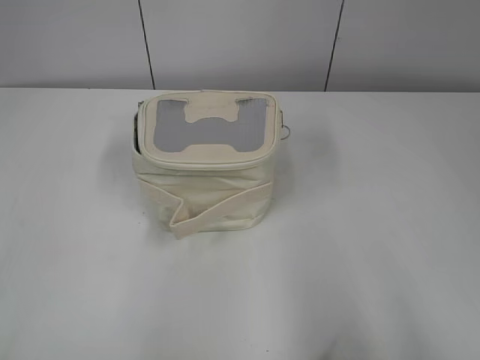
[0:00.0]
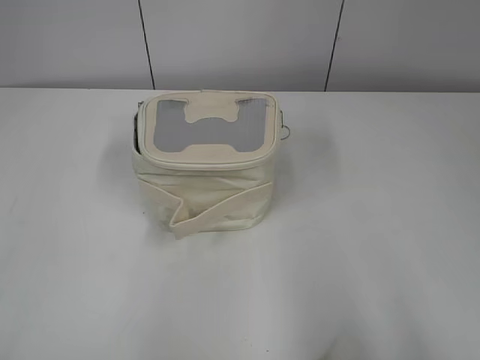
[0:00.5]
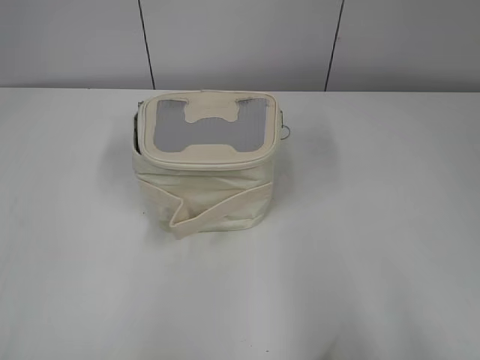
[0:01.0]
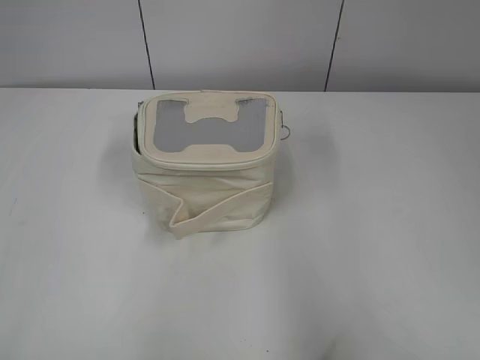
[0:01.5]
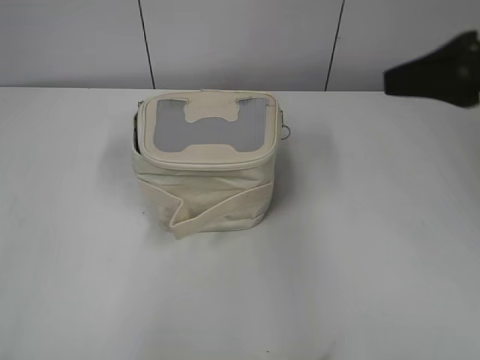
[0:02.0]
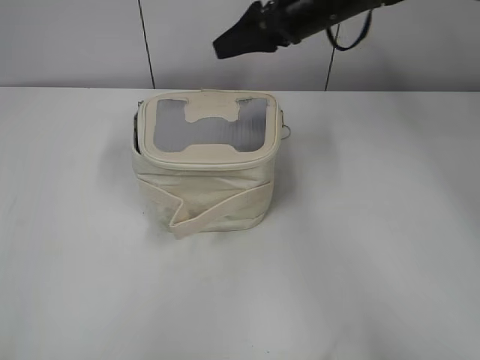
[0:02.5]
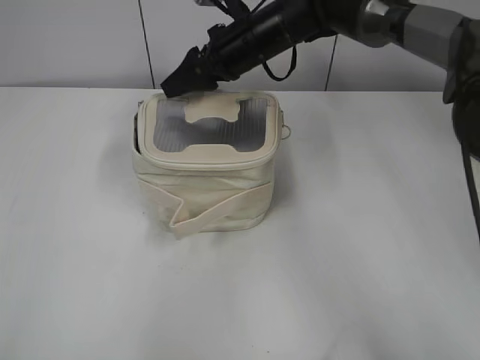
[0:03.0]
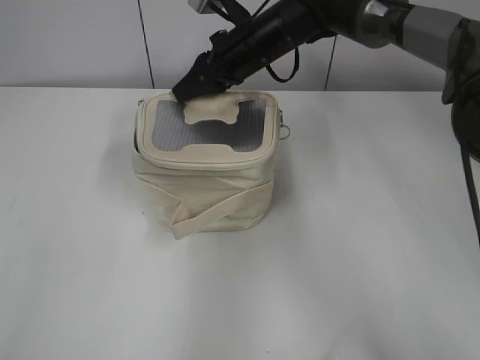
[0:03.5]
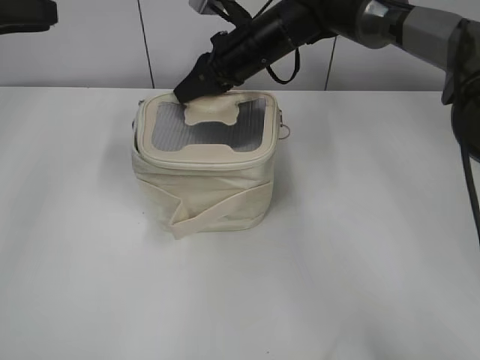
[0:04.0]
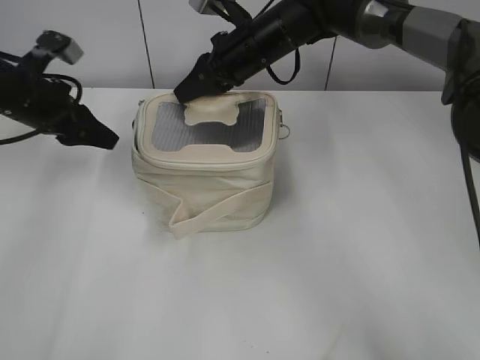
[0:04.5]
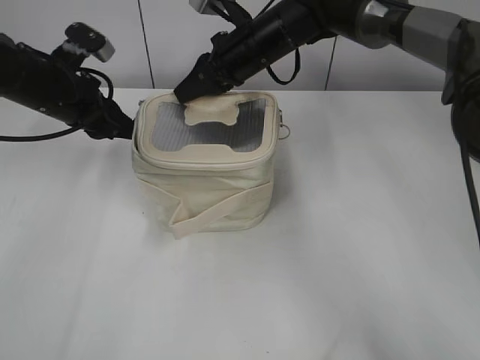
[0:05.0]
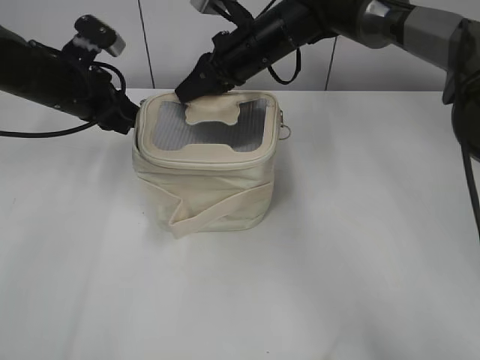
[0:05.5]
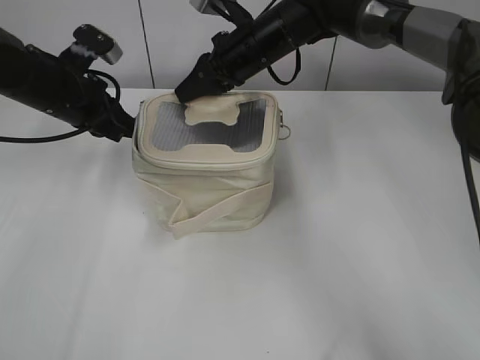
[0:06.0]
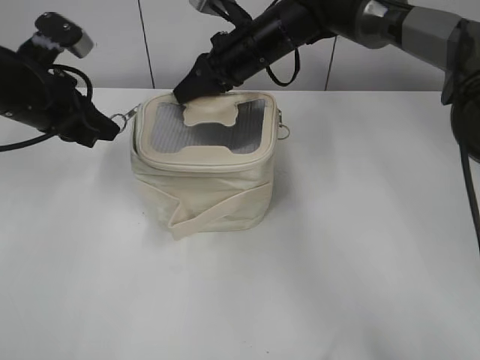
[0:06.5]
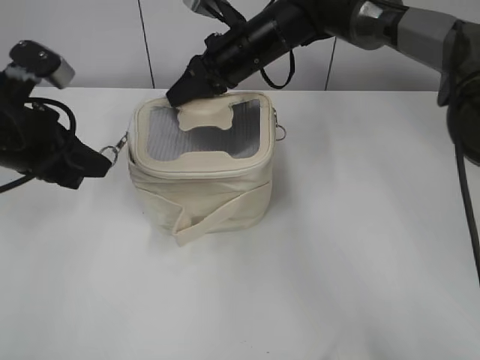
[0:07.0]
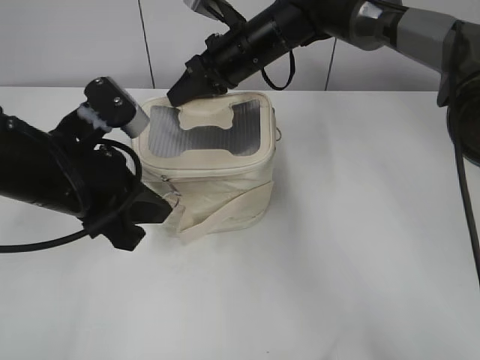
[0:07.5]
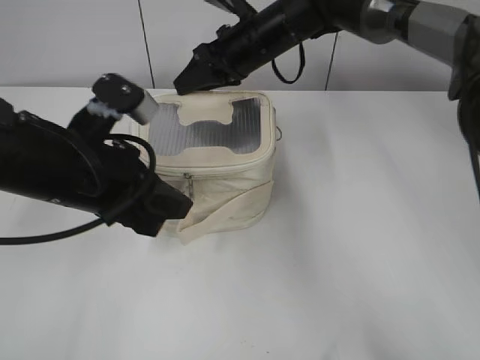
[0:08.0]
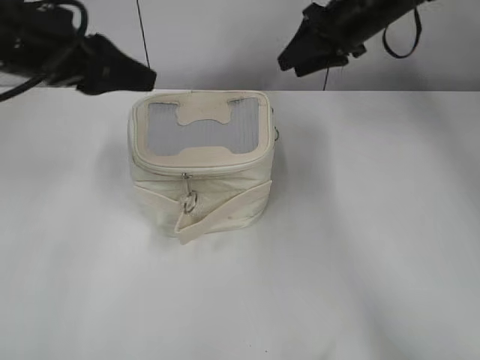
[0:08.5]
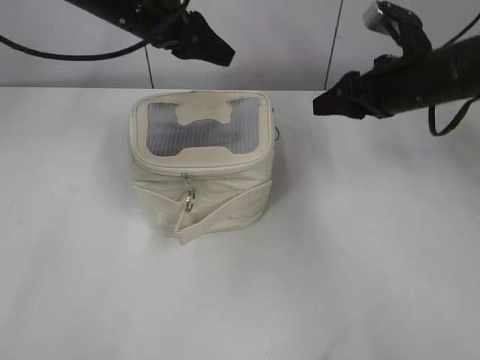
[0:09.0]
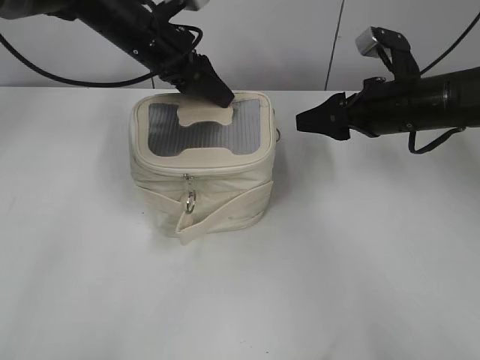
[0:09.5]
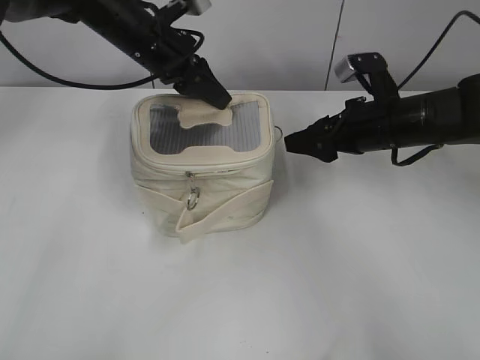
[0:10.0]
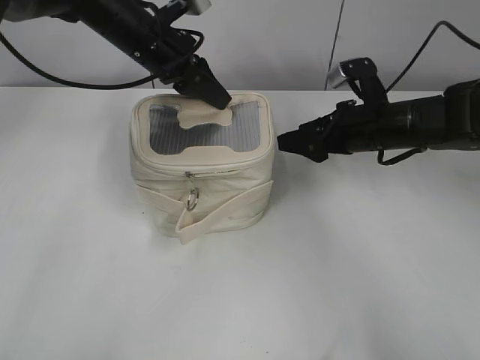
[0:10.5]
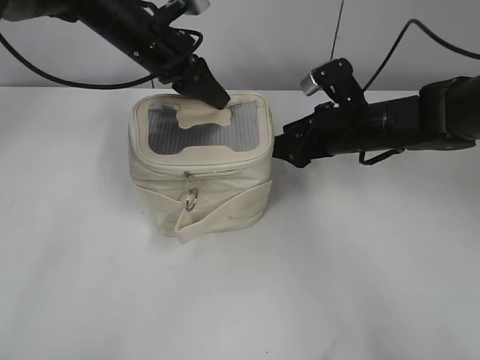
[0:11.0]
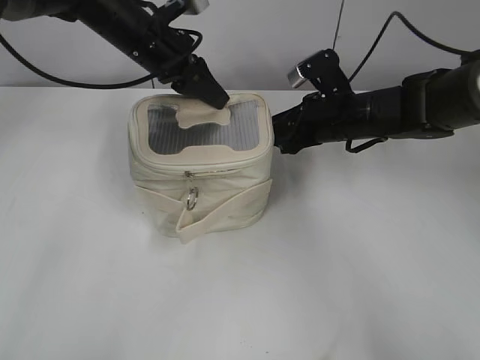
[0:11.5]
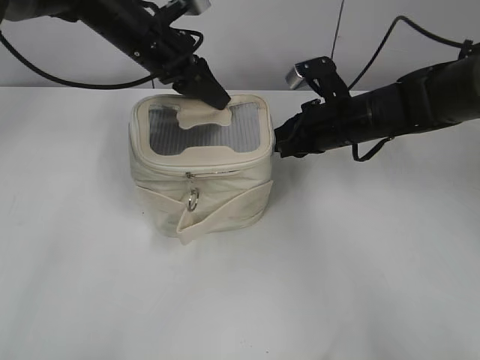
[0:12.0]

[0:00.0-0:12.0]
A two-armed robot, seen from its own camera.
Step, 0:00.0 to 0:08.0: Hold the bag with your right hand.
0:02.0 to 0:04.0: The right gripper travels forward, to the left and downward by about 35 cm, and closes; the left gripper moves forward, approximately 30 cm.
0:04.0 to 0:06.0: The left gripper shifts about 20 cm downward, forward and to the right, and closes its fingers.
0:06.0 to 0:08.0: The left gripper heads backward and to the right, covering about 20 cm.
0:08.0 to 0:10.0: The right gripper is displaced to the right and backward by about 20 cm, and opens its fingers, while the left gripper heads forward, covering about 20 cm, and opens and closes again.
0:10.0 to 0:12.0: The right gripper travels to the left by roughly 5 cm, and closes.

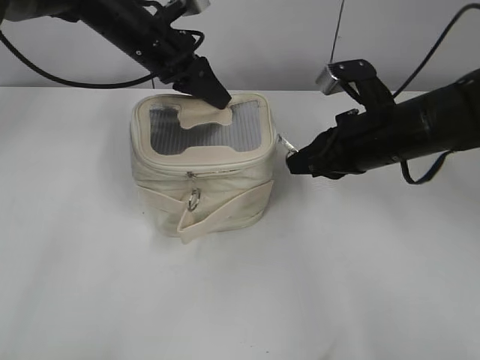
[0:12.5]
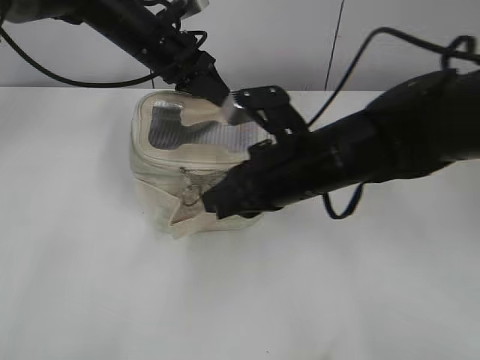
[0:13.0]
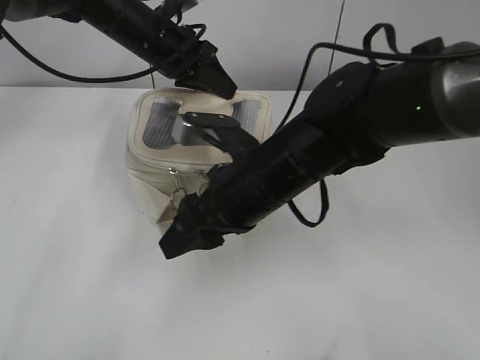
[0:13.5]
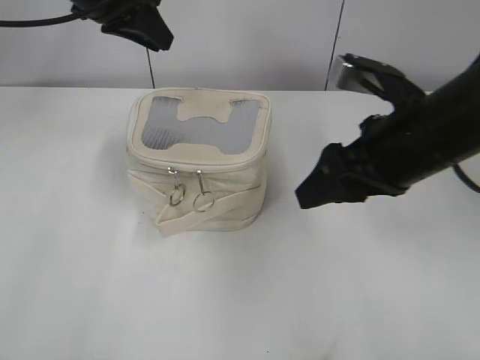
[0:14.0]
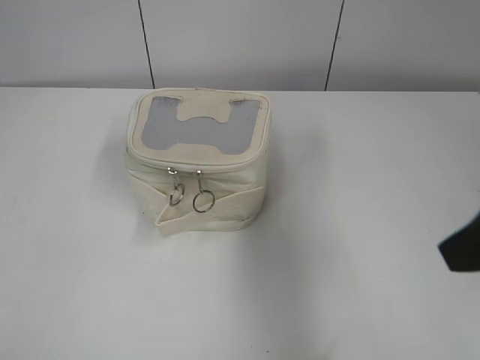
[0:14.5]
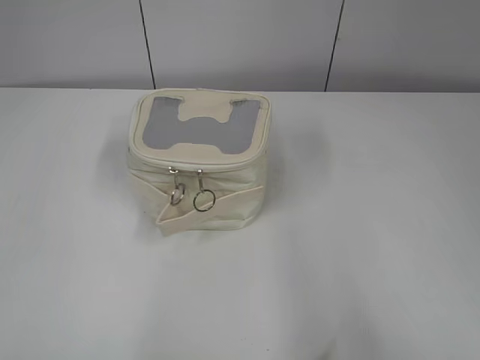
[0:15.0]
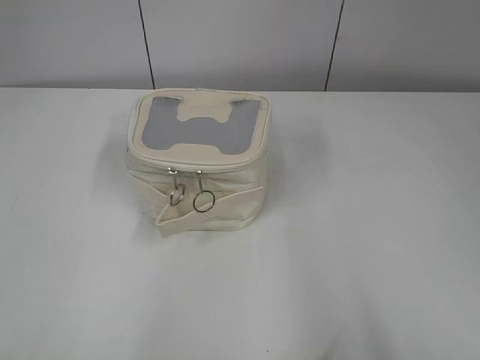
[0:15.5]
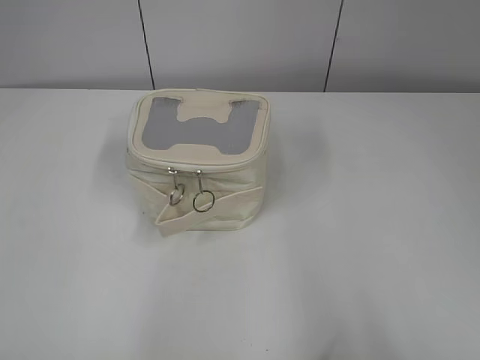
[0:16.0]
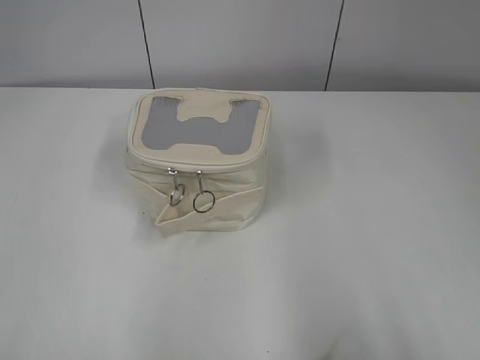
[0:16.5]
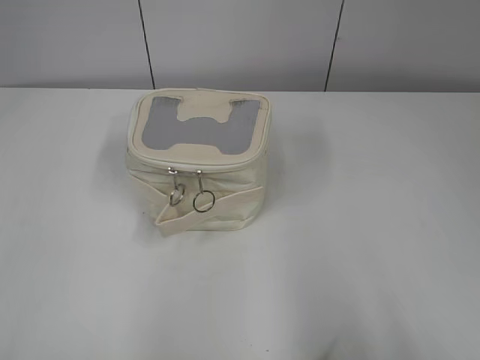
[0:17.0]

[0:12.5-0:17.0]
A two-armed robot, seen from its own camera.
0:12.5 to 0:14.5: The left gripper shifts about 30 cm backward, to the left and upward. The right gripper travels backward and upward by about 20 cm, reaches some 15 cm to the left, then returns, and opens.
0:14.5 to 0:17.0: The right gripper goes roughly 20 cm backward and to the right; the left gripper shifts roughly 20 cm backward.

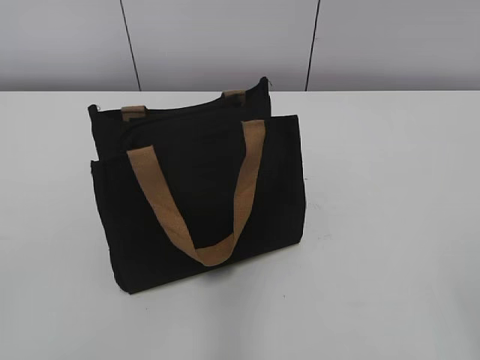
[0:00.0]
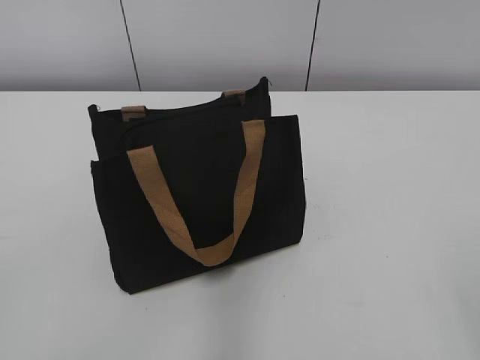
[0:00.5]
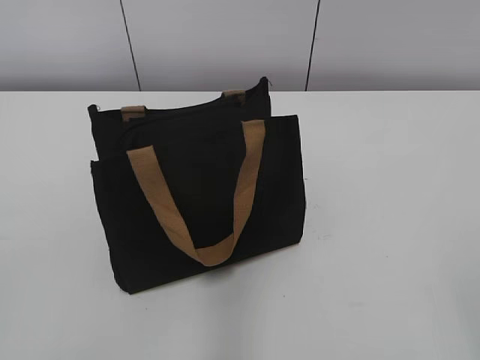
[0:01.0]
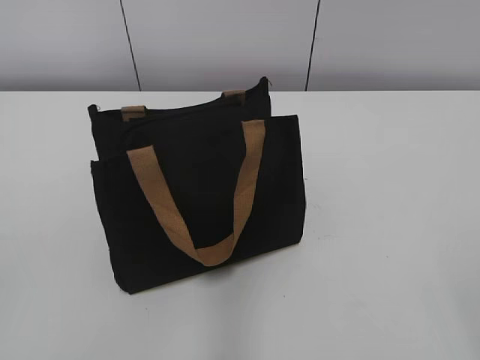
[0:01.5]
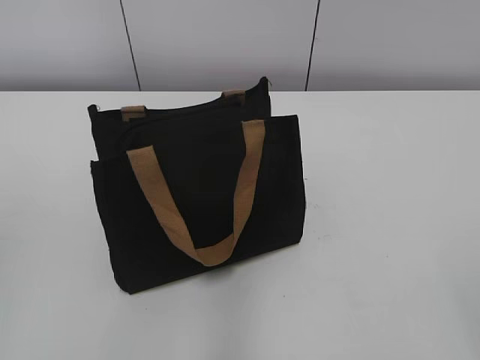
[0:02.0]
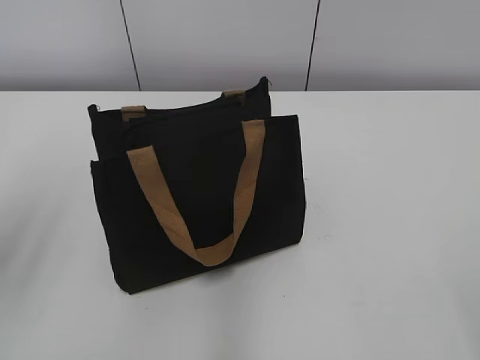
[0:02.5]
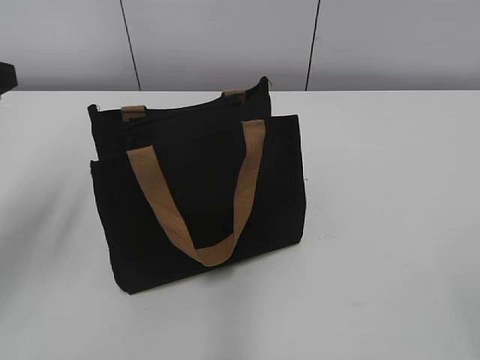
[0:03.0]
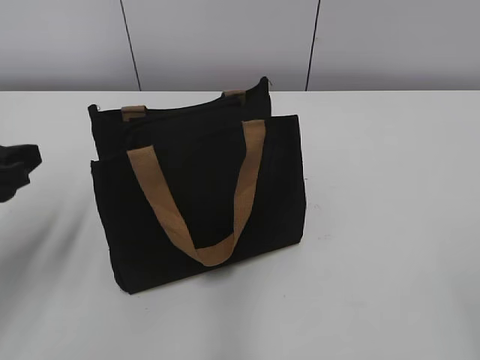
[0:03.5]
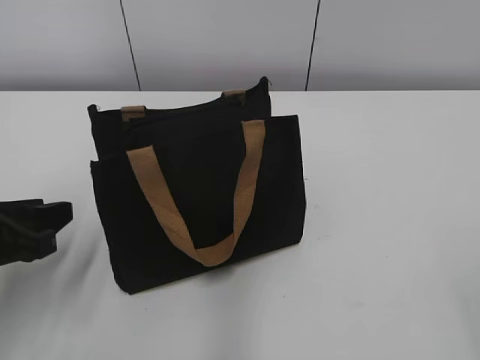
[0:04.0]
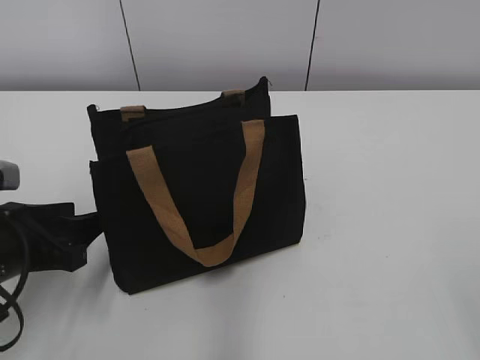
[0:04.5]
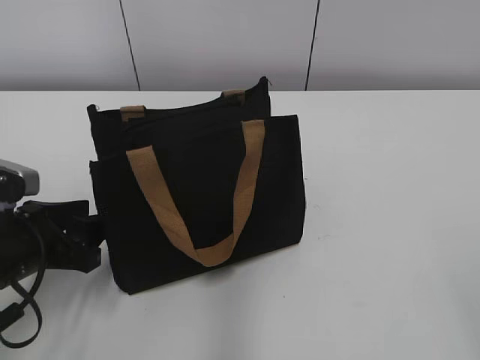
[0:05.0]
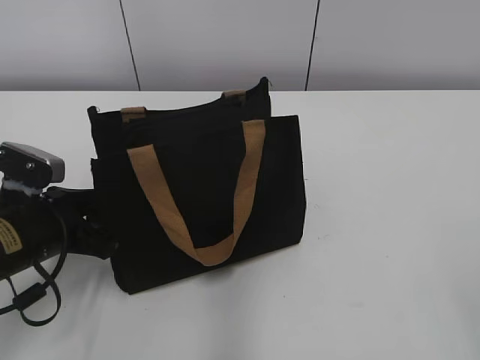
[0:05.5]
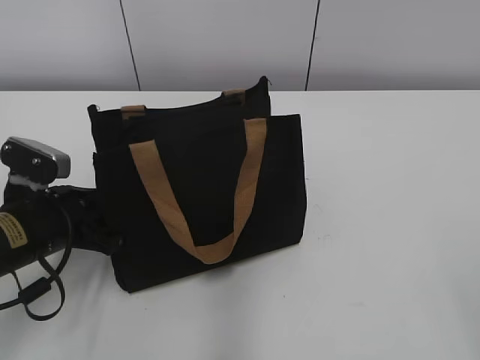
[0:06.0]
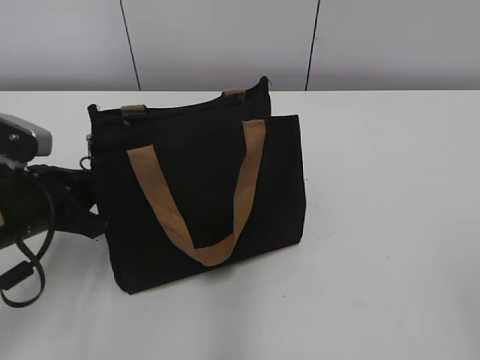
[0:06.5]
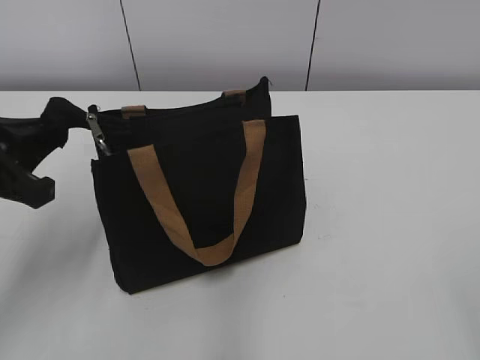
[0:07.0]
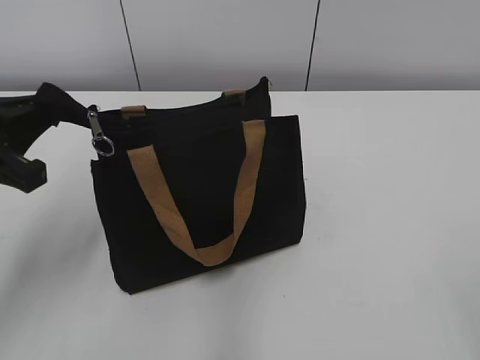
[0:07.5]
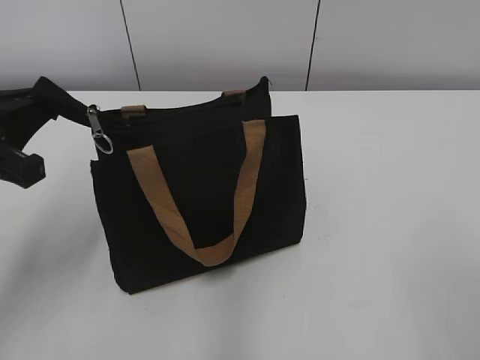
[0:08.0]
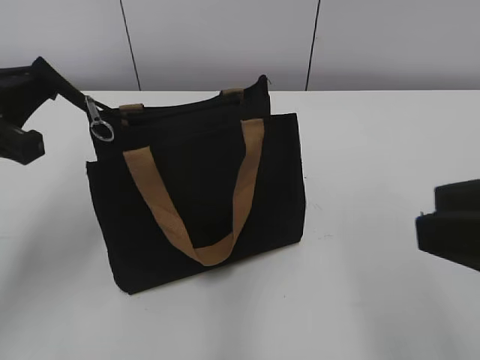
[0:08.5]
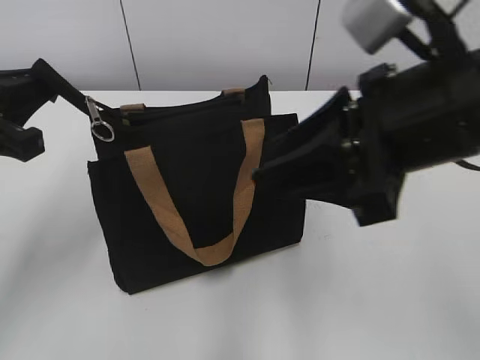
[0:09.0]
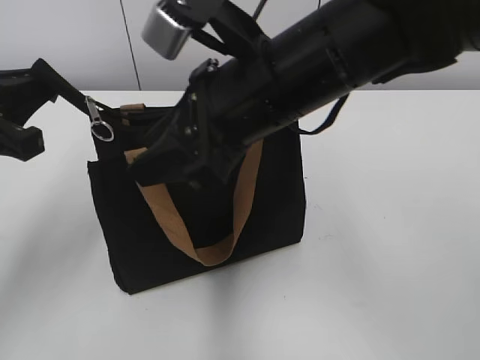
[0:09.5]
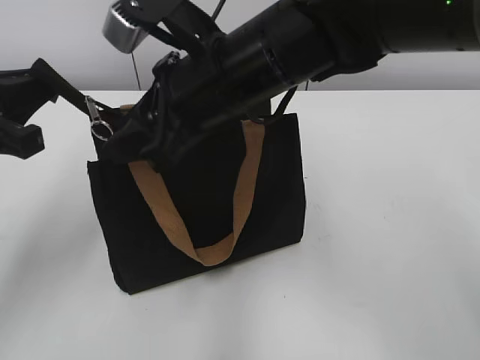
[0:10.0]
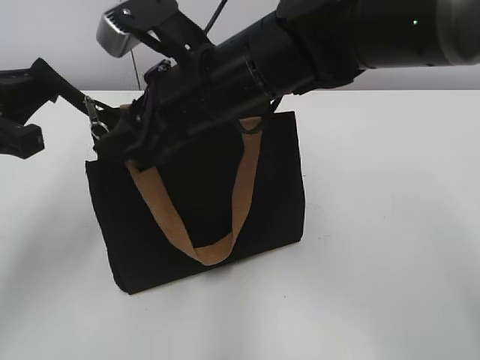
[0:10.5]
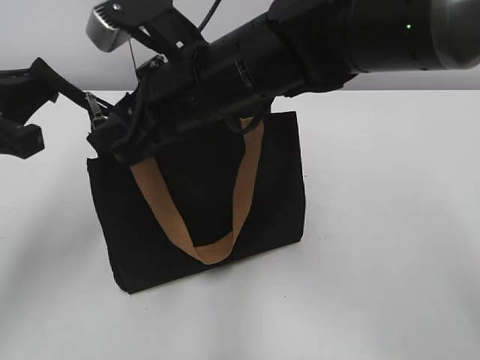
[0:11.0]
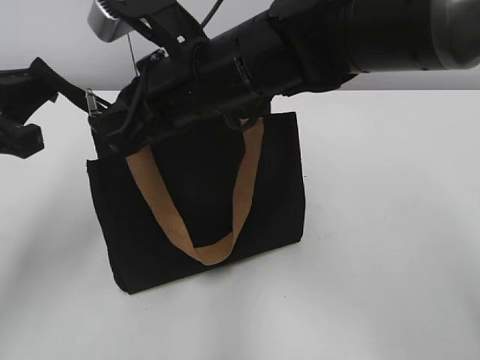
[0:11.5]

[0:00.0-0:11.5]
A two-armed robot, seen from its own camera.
0:02.0 to 0:04.0: The left gripper moves downward and forward, roughly 20 cm.
0:04.0 to 0:06.0: The left gripper goes approximately 10 cm forward and downward.
0:06.0 to 0:07.5: The left gripper travels upward by roughly 10 cm, and closes.
0:07.5 to 0:09.5: The right gripper moves forward and to the left, about 35 cm.
0:09.5 to 0:11.5: The right gripper travels to the left and forward by some 10 cm, and closes its fingers.
